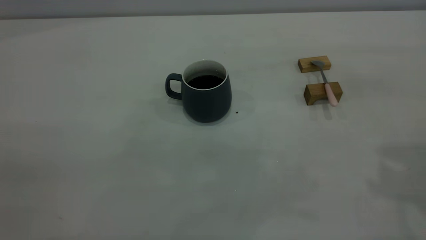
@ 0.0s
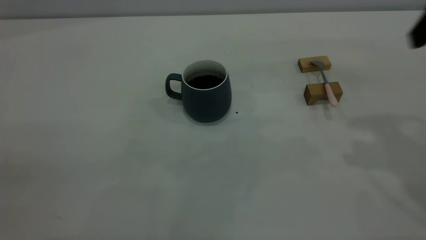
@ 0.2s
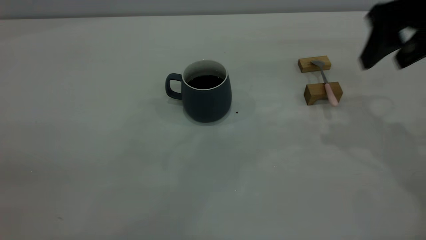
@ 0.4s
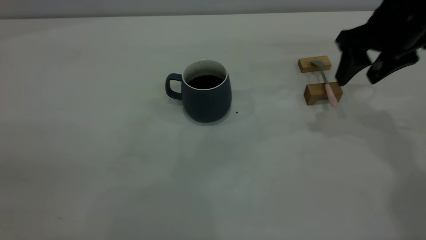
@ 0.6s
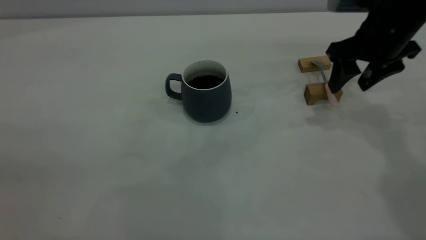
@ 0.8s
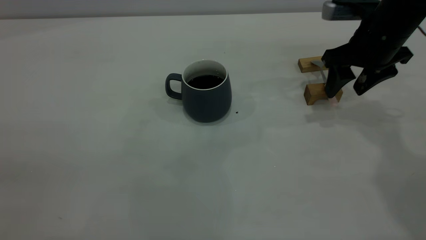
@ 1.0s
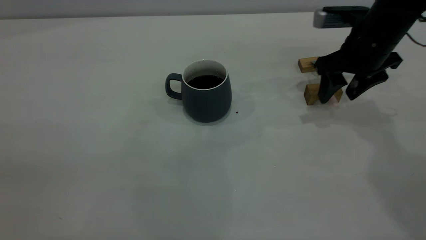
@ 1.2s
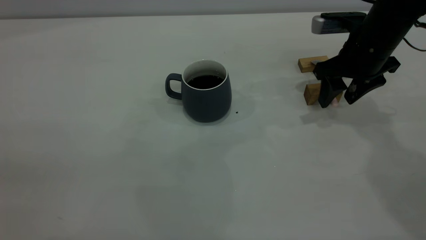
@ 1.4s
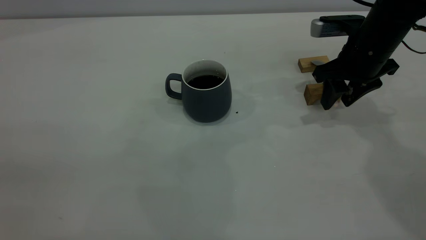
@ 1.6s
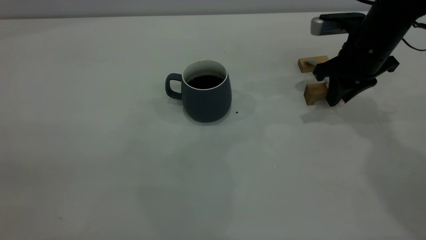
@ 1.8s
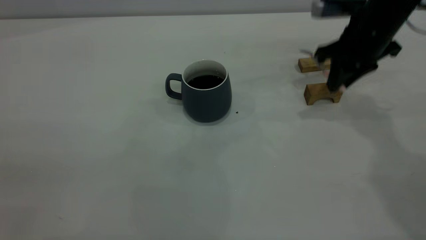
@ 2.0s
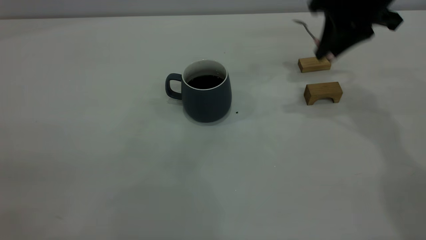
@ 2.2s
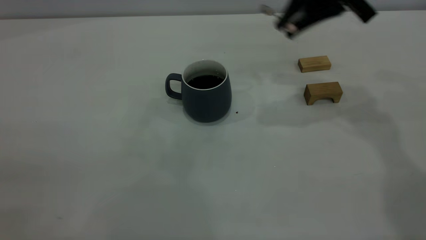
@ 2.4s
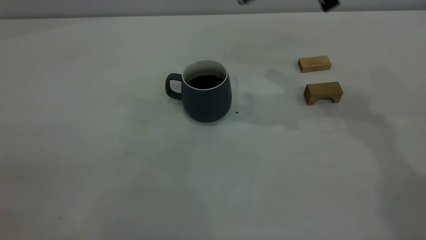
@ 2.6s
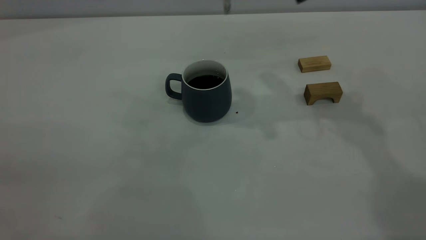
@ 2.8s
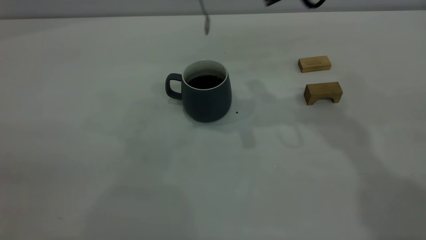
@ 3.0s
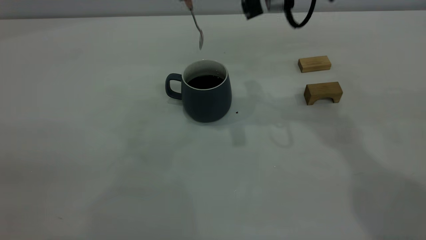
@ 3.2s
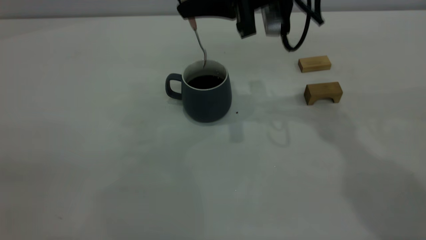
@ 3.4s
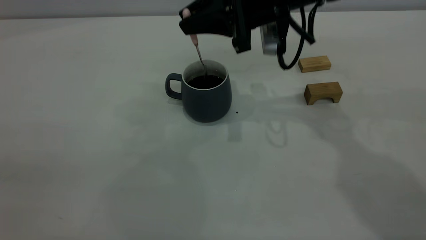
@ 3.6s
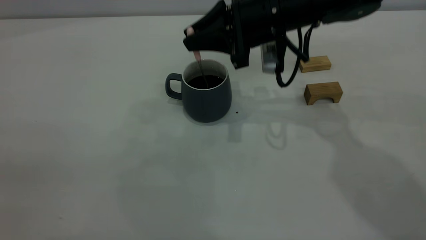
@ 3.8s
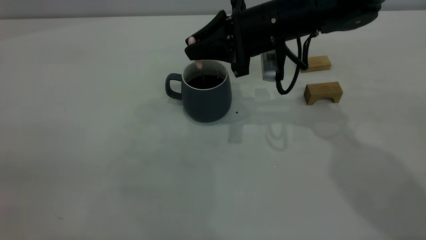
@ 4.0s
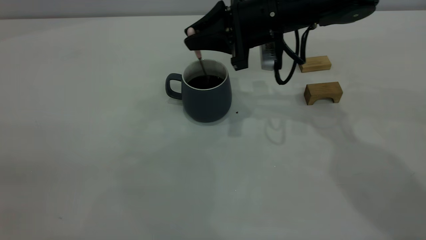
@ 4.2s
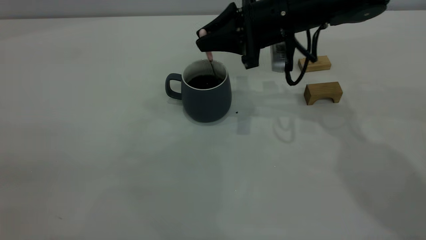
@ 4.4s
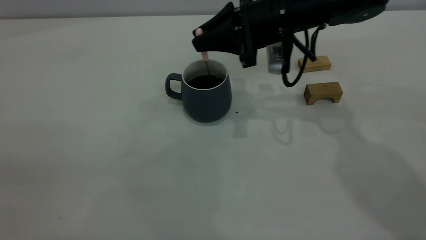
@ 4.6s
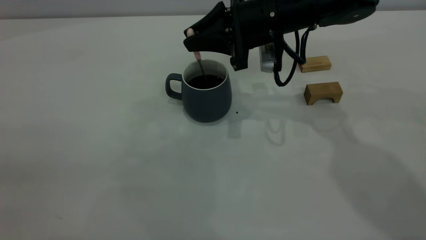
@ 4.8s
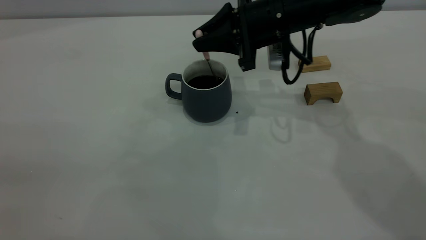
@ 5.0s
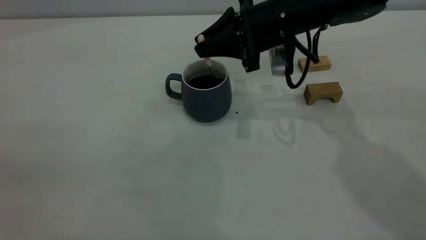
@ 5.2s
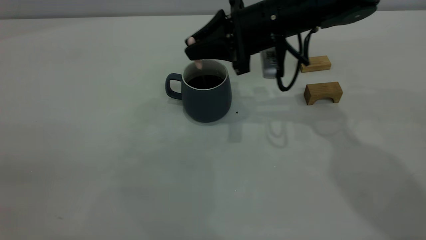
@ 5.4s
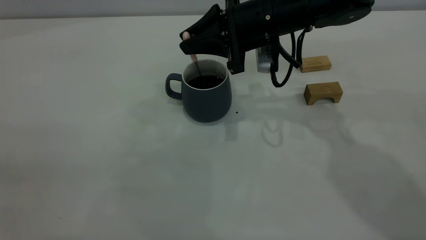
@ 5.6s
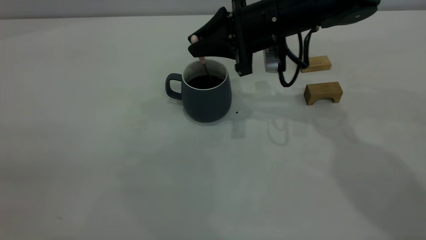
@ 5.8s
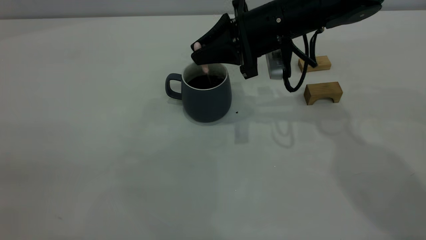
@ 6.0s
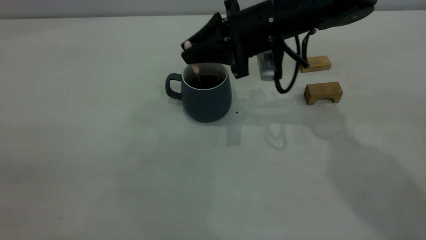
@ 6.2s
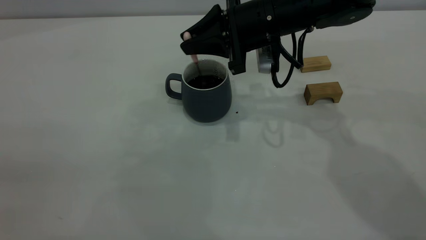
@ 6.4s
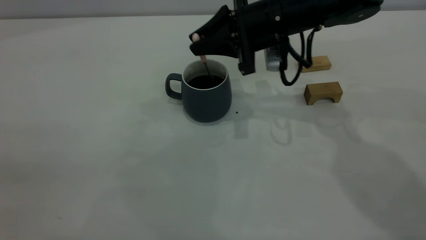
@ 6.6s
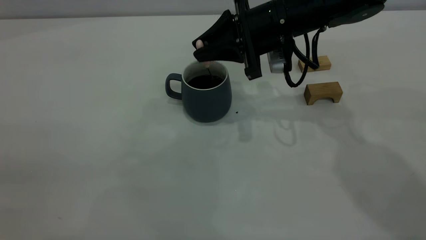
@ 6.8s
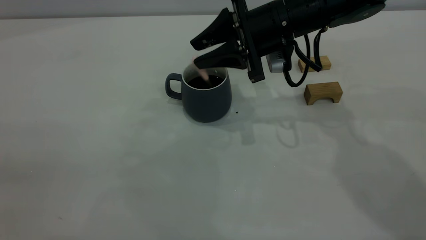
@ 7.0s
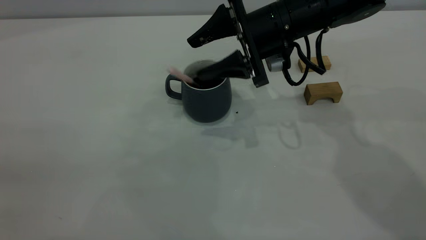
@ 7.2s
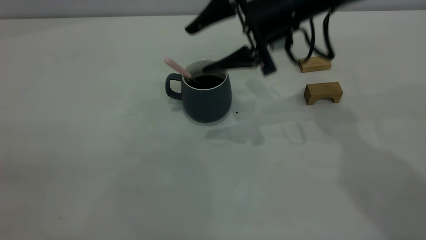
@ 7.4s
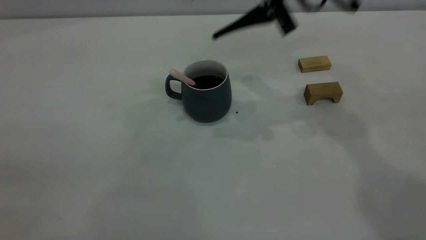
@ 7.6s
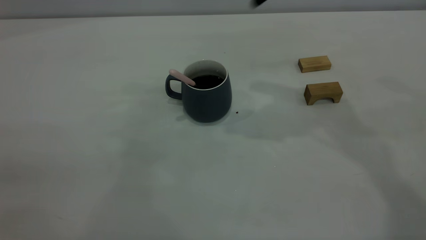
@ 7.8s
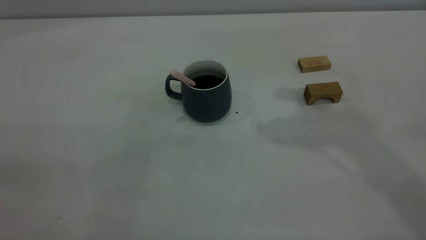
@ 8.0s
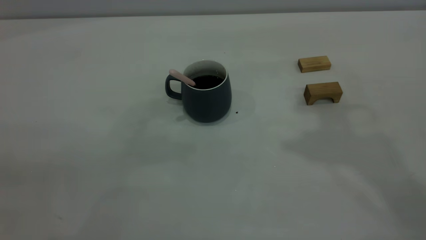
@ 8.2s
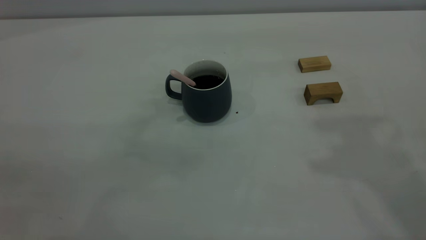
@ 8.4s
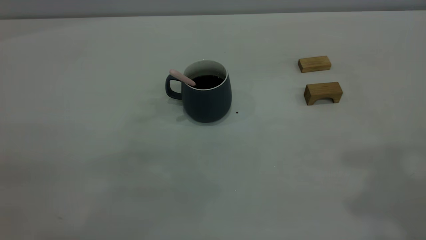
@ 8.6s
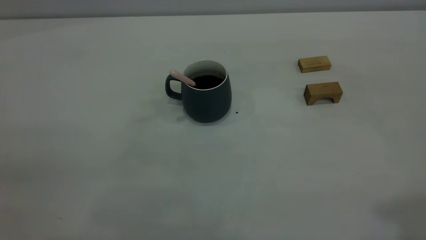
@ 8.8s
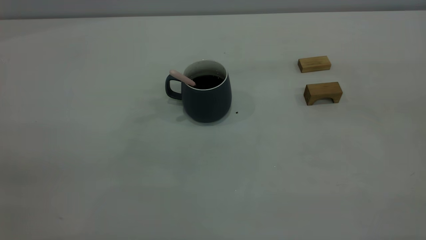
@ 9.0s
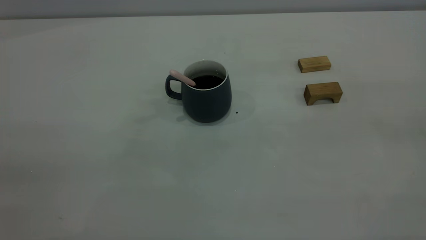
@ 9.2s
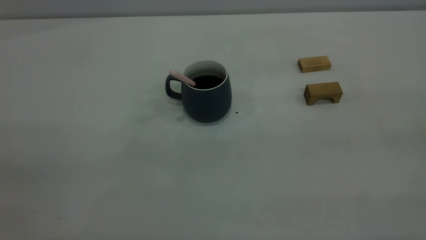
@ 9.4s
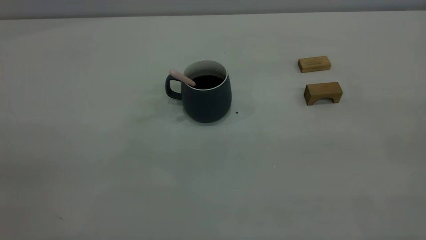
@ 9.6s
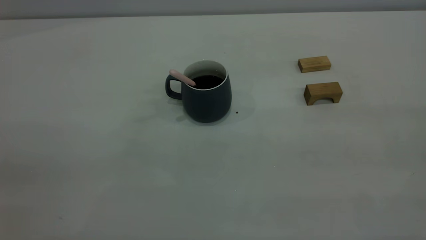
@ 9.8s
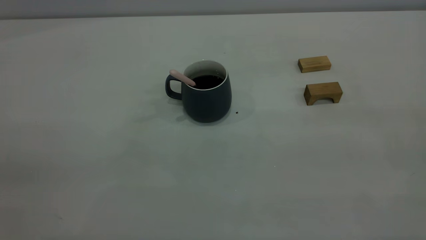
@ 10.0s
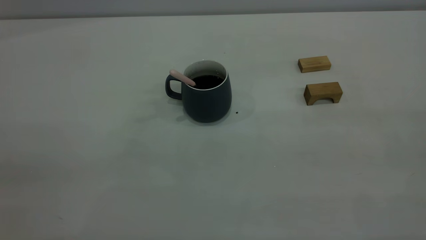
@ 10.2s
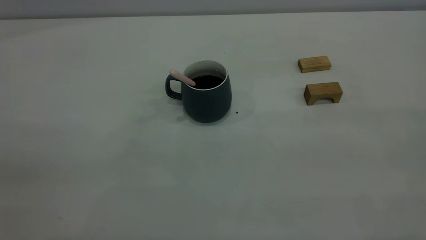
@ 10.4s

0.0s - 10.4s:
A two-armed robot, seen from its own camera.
Step, 0.0s - 2.2s: Pick up the spoon.
Step, 2.4s - 7.4s: Stir the coffee in the cup.
0.0s - 1.4s: The right gripper moves downward and forward, approximately 25 cm.
1.4s - 3.0s: The right gripper shifts approximately 20 cm upward and to the left, and closes its fingers.
3.0s - 4.4s: The right gripper is displaced downward by about 10 cm.
4.4s - 6.0s: The grippers move only a little.
6.0s - 7.4s: The right gripper opens its fingers.
7.4s - 9.0s: The right gripper moves backward, upward and to the right, about 50 cm, and closes.
